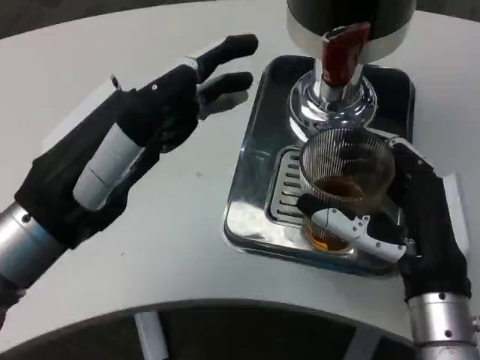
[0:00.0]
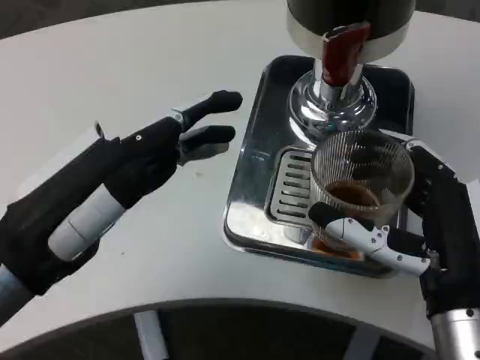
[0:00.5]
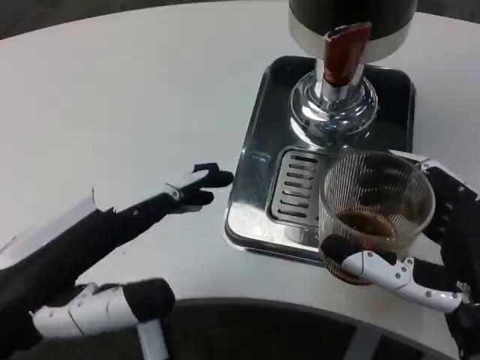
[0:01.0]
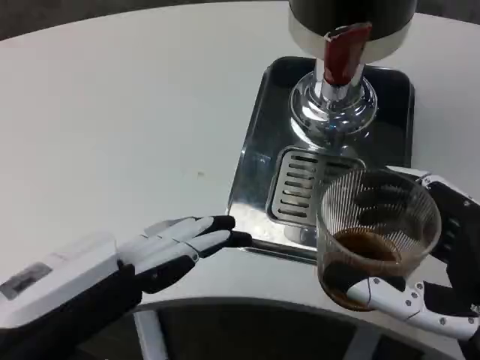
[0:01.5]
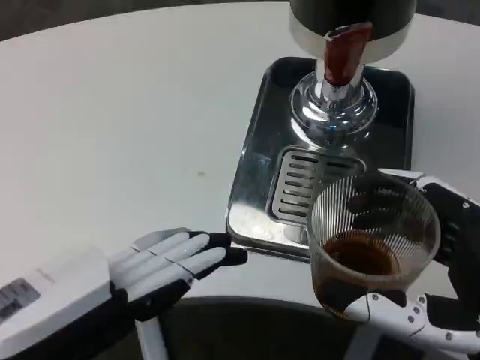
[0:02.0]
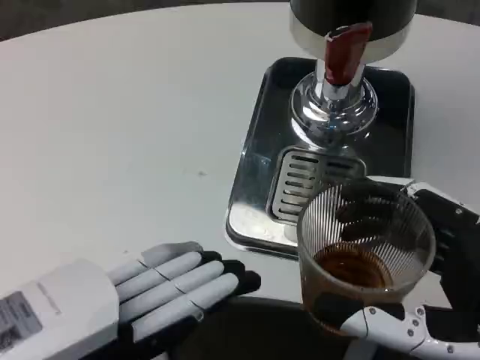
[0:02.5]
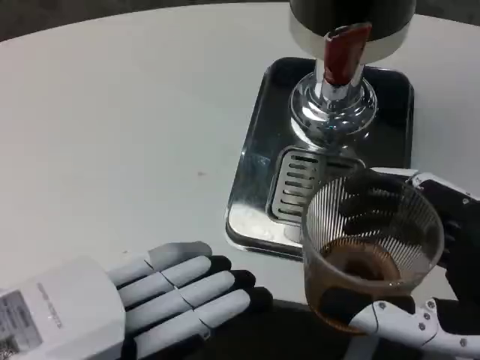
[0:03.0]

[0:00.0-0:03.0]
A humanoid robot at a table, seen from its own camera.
Task of the whole recording: Grasp the cup under the faucet to collect the drink, then remove the cup.
0:00.0 to 0:01.5: Both hands travel together backward, approximately 10 cm.

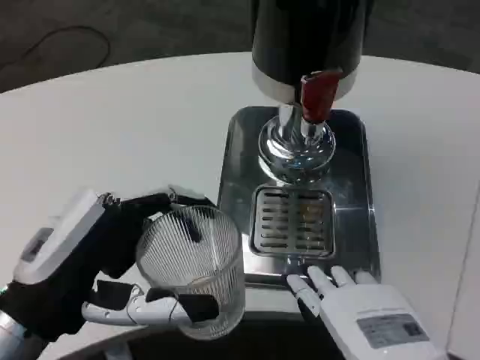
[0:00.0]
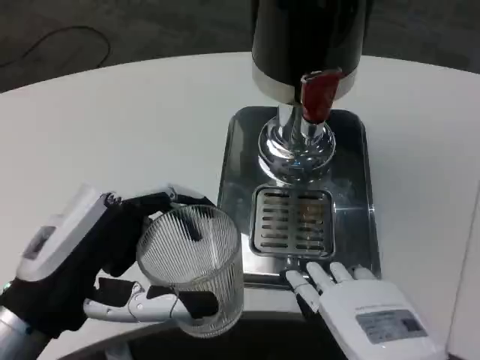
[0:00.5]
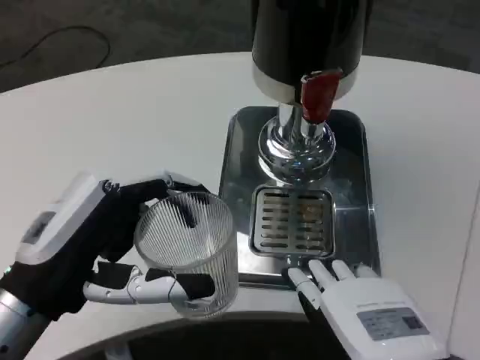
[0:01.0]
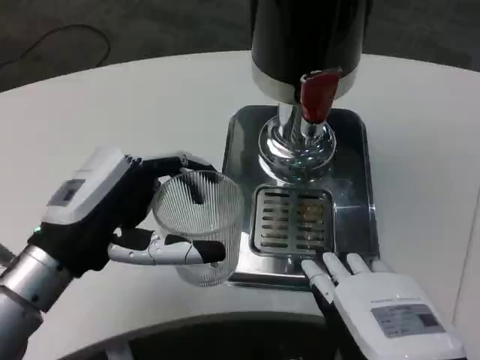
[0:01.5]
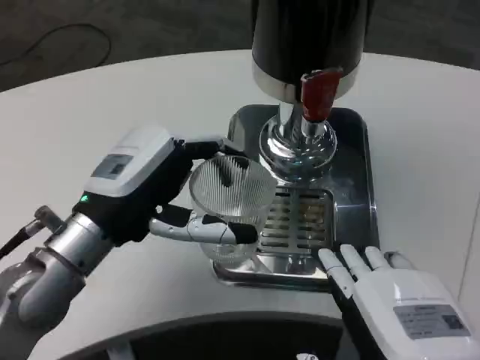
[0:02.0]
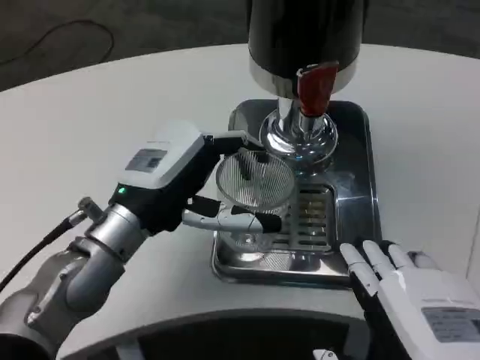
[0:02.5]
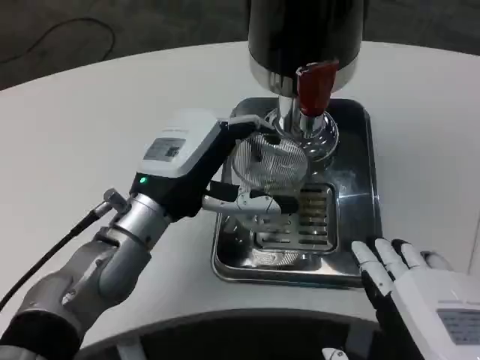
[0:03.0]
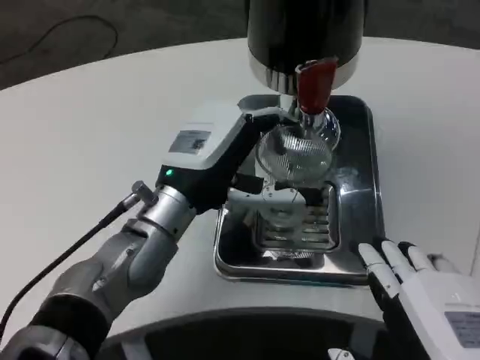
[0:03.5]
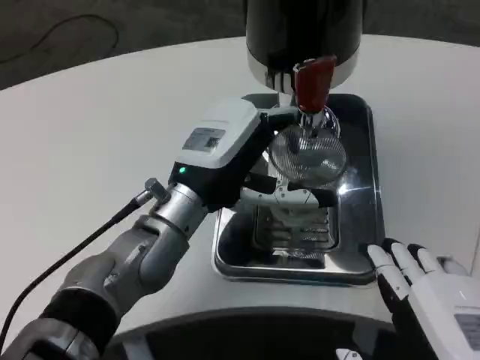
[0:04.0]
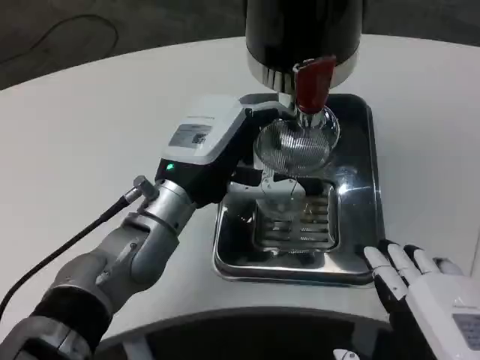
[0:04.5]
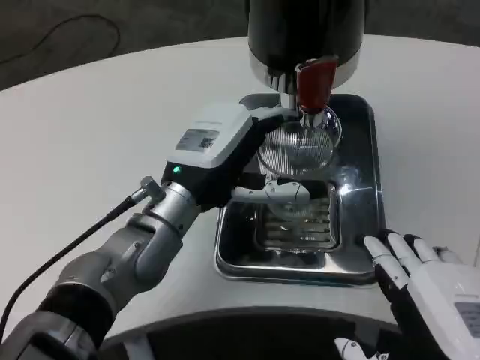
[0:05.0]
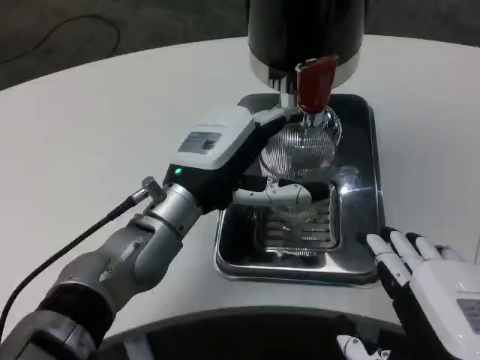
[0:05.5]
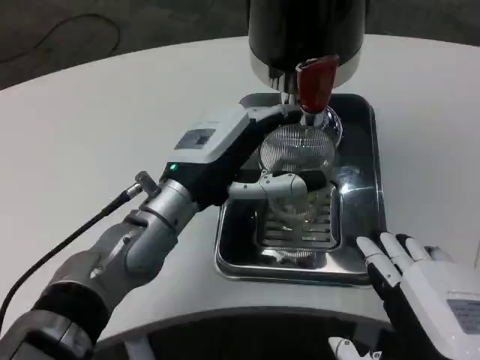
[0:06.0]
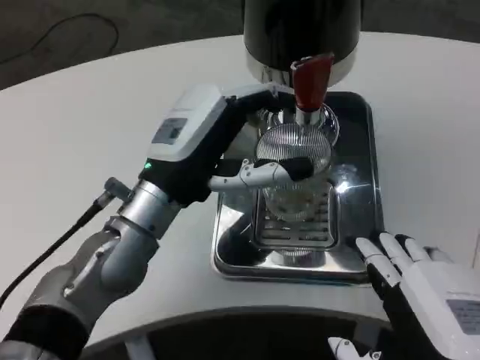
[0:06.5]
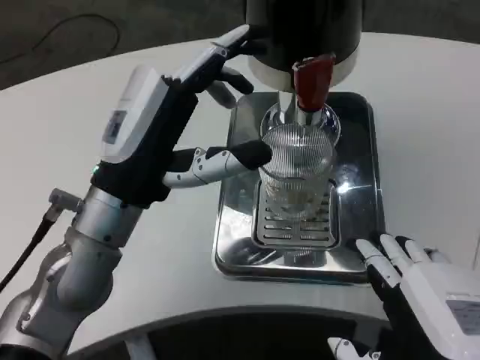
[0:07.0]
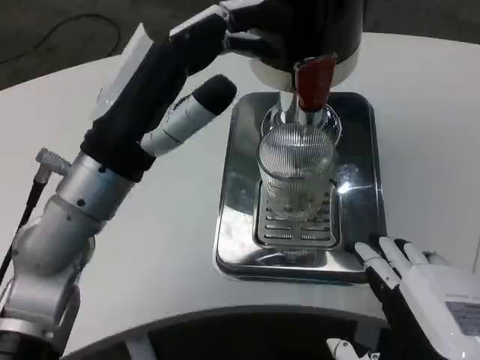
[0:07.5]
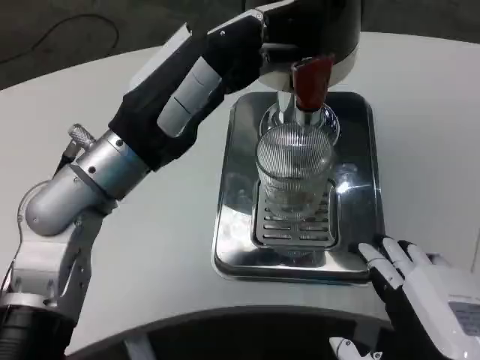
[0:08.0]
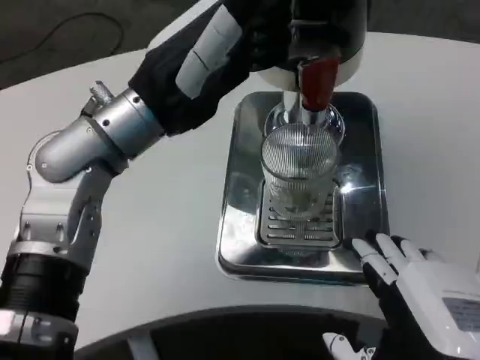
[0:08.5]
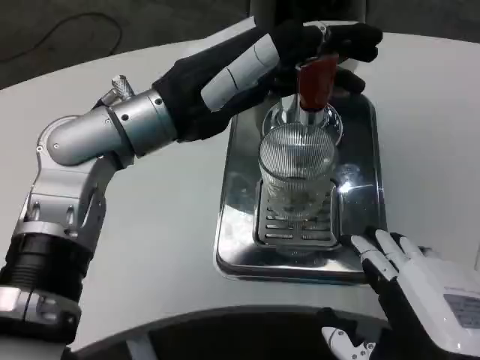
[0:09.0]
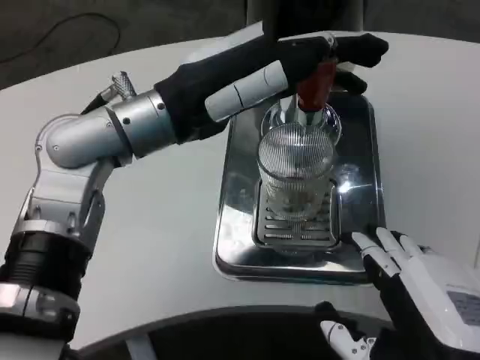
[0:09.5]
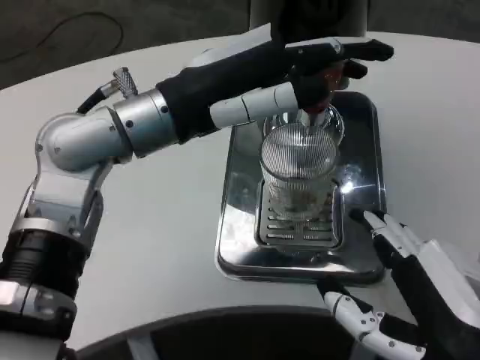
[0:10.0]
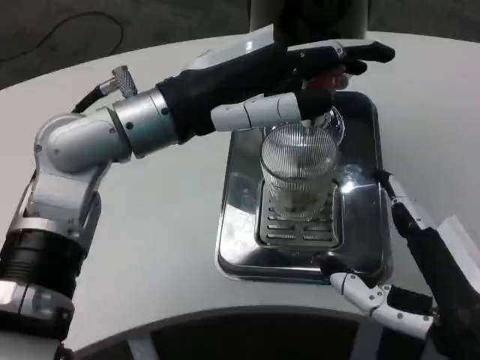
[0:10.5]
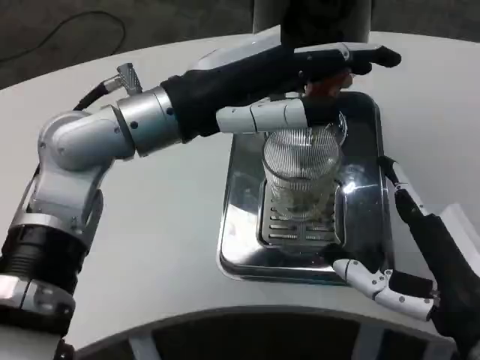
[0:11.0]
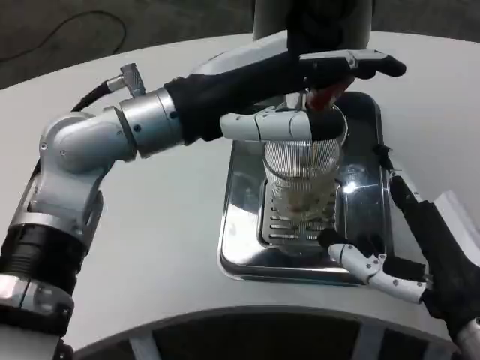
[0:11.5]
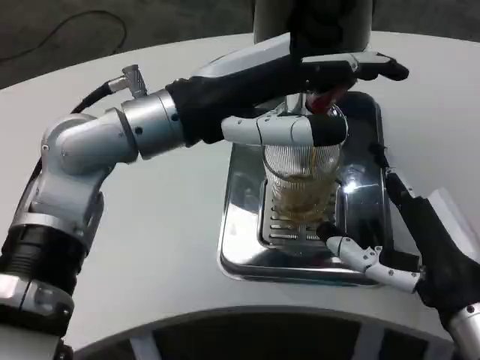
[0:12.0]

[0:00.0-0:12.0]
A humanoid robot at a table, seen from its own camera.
Task of the whole recording: Grasp the cup under the faucet to collect the drink, then remove the cup.
0:00.0 to 0:02.0: The left hand is displaced forward by roughly 10 cm.
0:02.0 to 0:04.0: The left hand heads to the right, covering some 10 cm.
0:04.0 to 0:06.0: The hands make only small movements.
0:06.0 to 0:08.0: The left hand goes roughly 5 cm upward.
0:08.0 to 0:10.0: The left hand moves about 5 cm.
0:10.0 to 0:12.0: The right hand is displaced forward by approximately 10 cm.

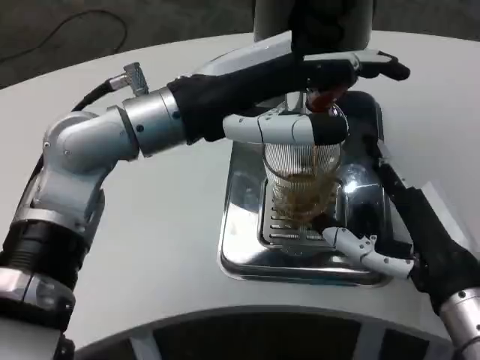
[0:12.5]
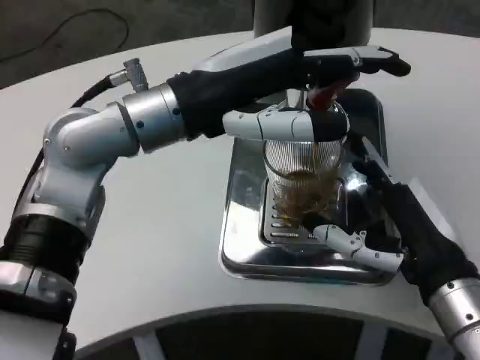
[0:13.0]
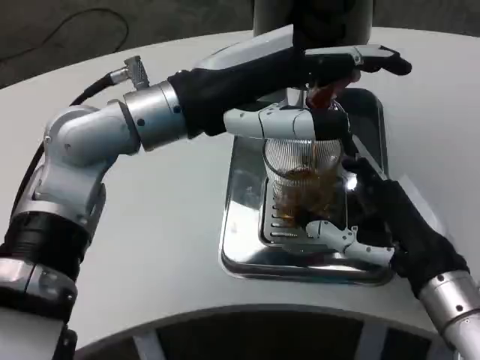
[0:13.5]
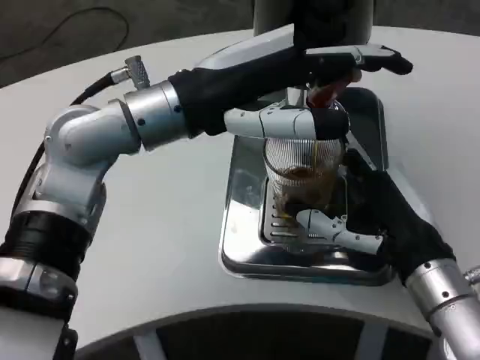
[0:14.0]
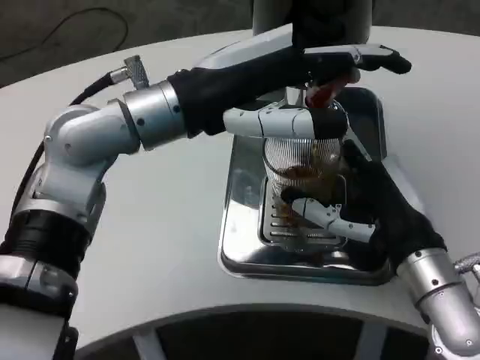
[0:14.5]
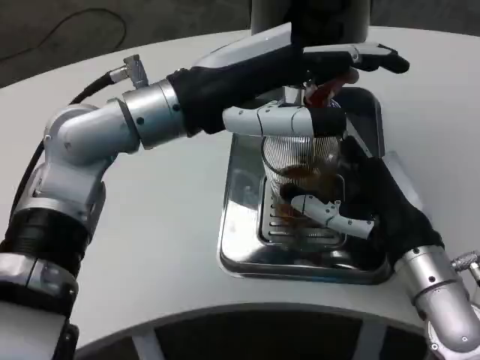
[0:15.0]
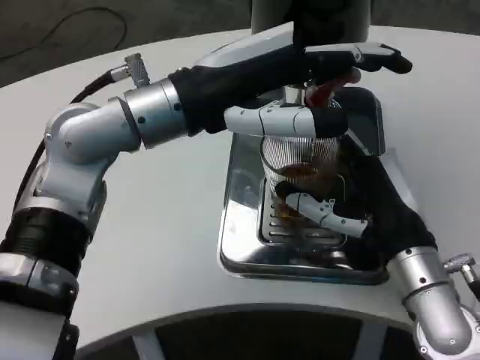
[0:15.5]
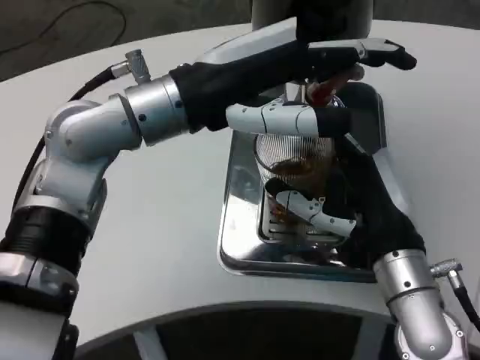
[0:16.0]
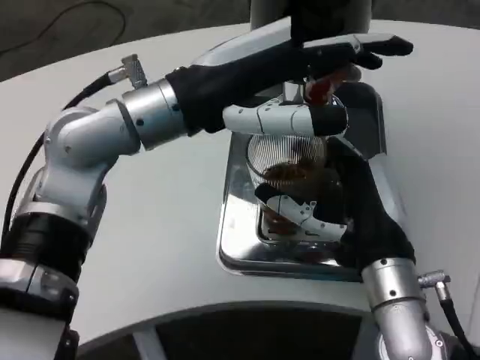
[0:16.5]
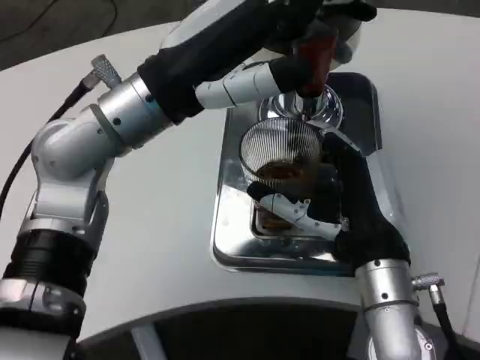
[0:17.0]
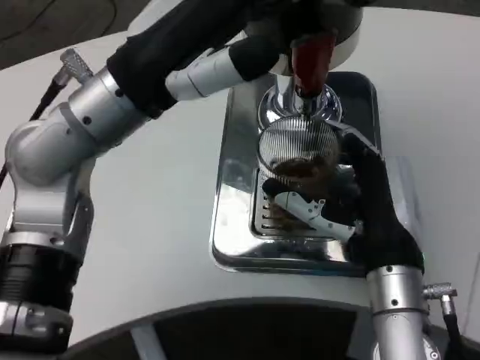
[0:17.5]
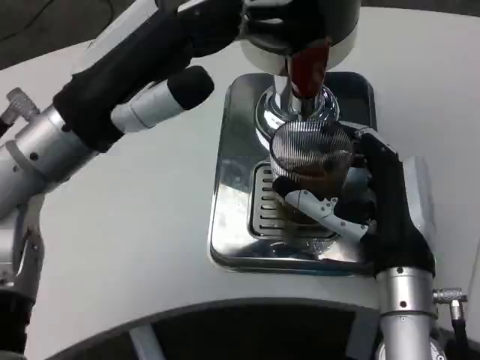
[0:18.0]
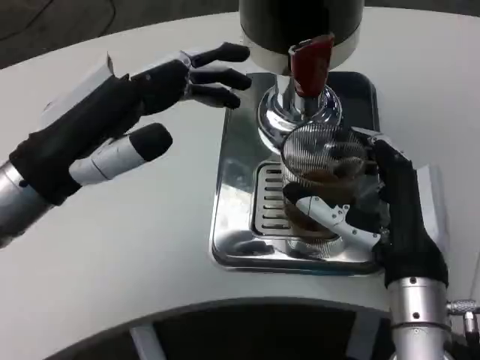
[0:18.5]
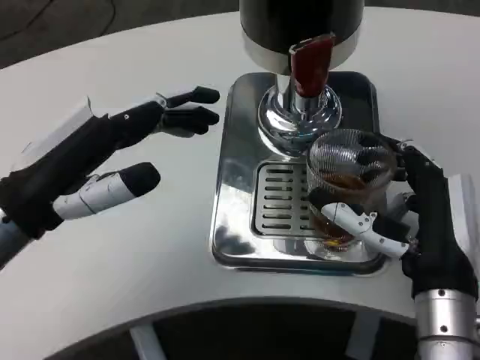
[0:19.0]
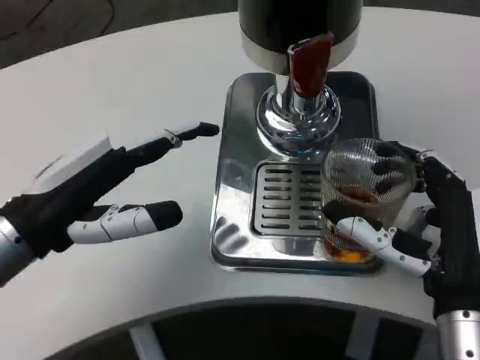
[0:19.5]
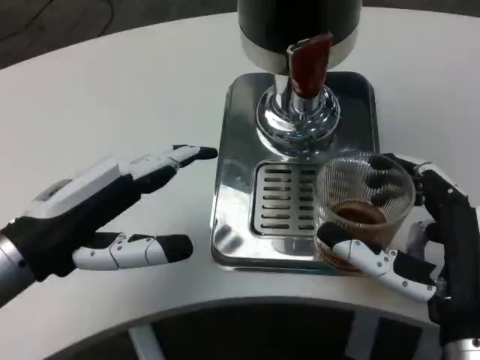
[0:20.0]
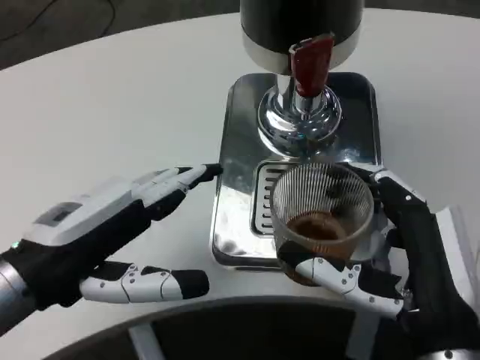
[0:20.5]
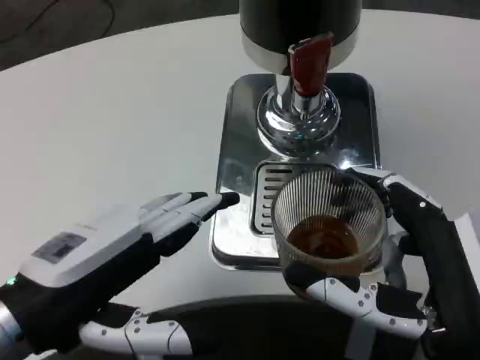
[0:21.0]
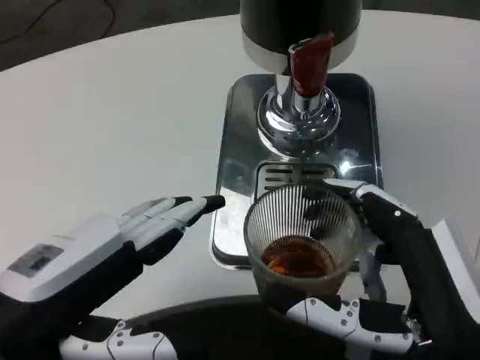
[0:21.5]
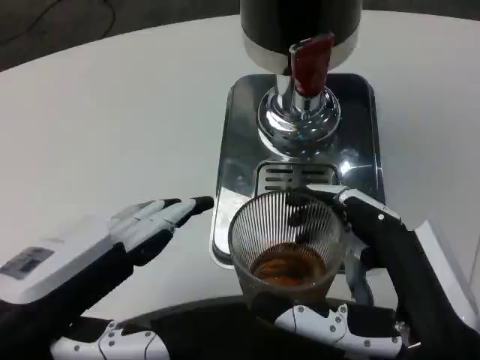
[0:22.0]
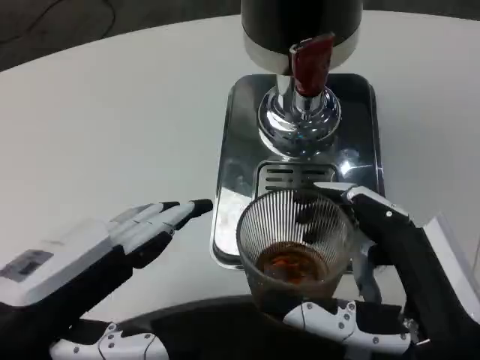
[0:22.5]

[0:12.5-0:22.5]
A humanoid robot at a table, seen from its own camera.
Task of the whole recording: Grasp the cup under the faucet to collect the drink, then remove the cup.
0:12.5 to 0:14.5: The right hand moves forward, approximately 5 cm.
0:16.5 to 0:18.5: The left hand moves to the left, backward and downward, some 15 cm.
0:18.5 to 0:20.5: The hands both shift backward by about 5 cm.
0:20.5 to 0:22.5: The left hand is displaced backward by approximately 5 cm.
